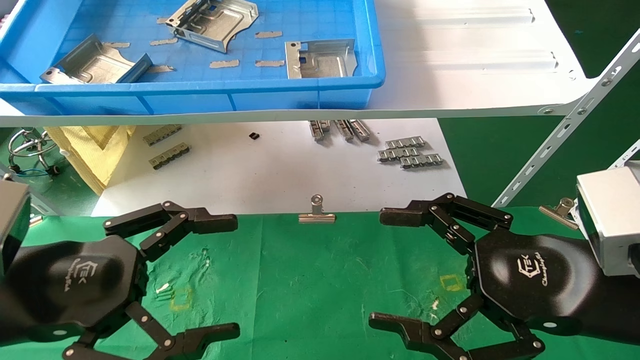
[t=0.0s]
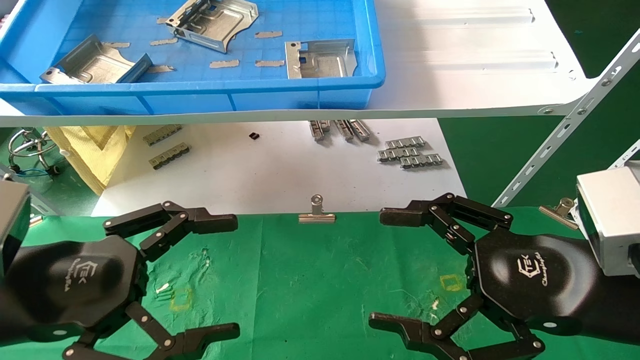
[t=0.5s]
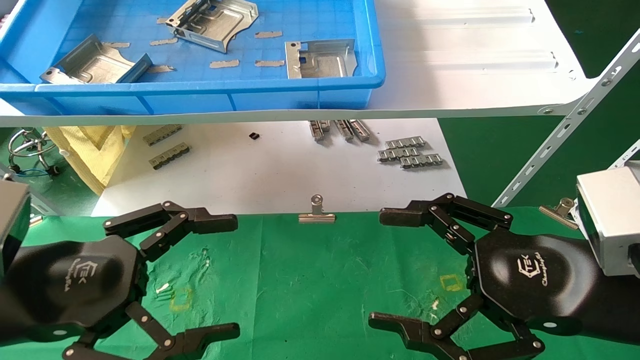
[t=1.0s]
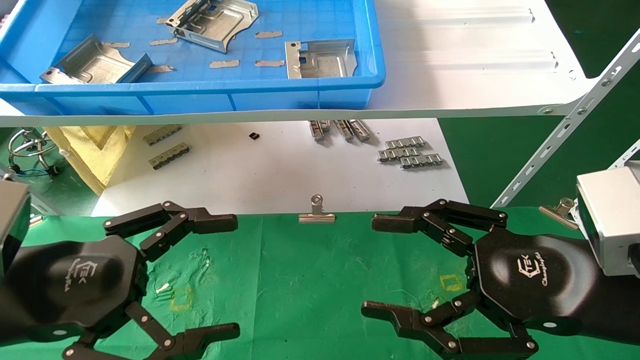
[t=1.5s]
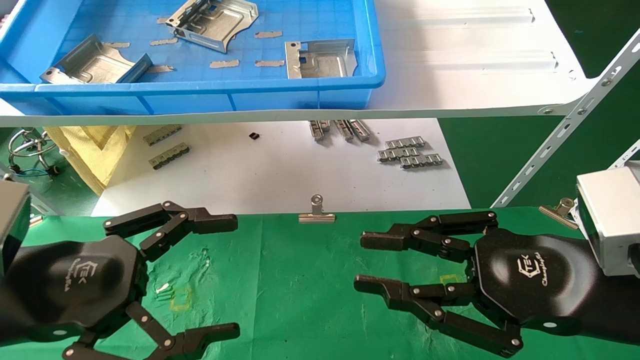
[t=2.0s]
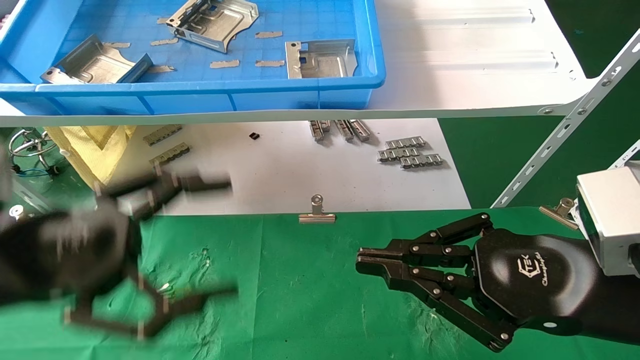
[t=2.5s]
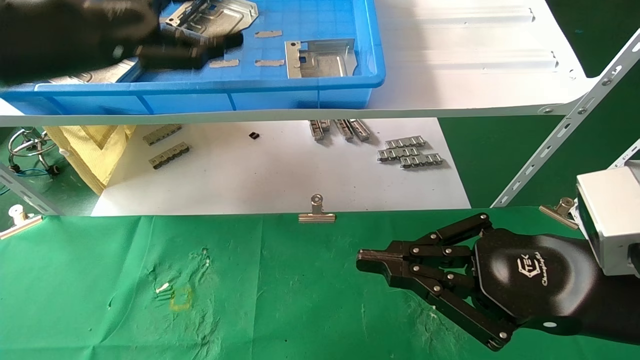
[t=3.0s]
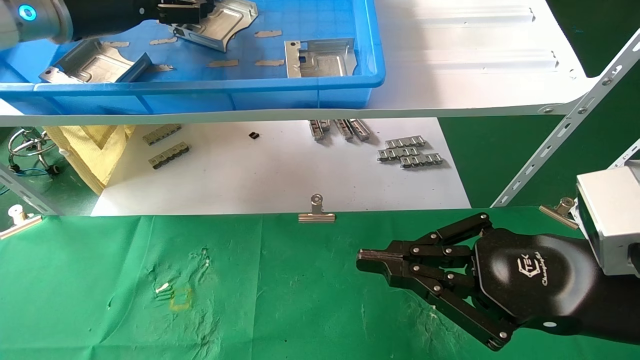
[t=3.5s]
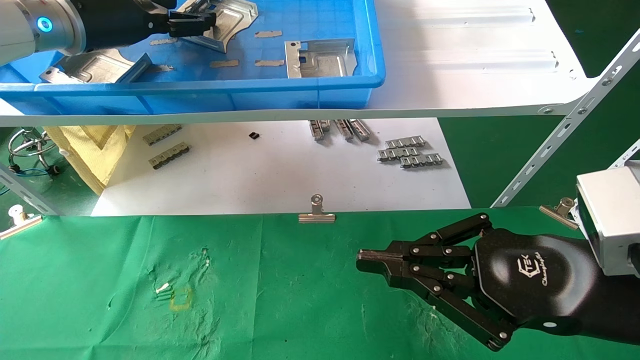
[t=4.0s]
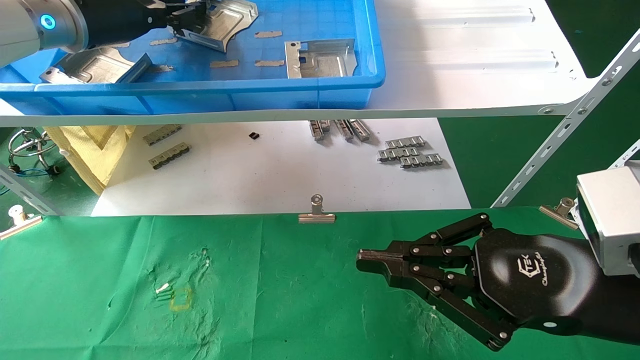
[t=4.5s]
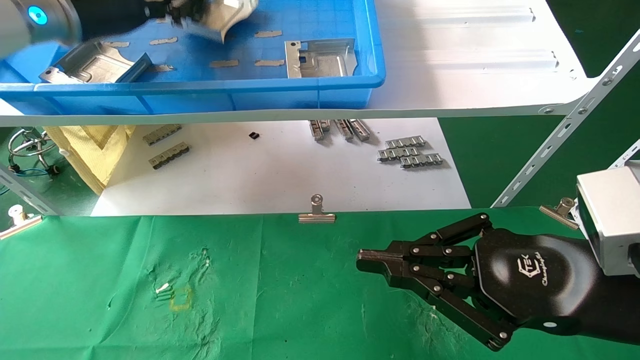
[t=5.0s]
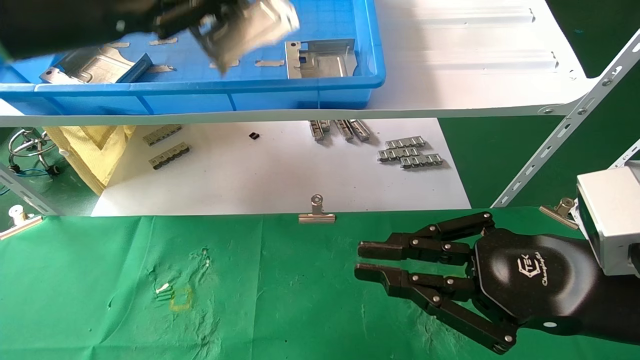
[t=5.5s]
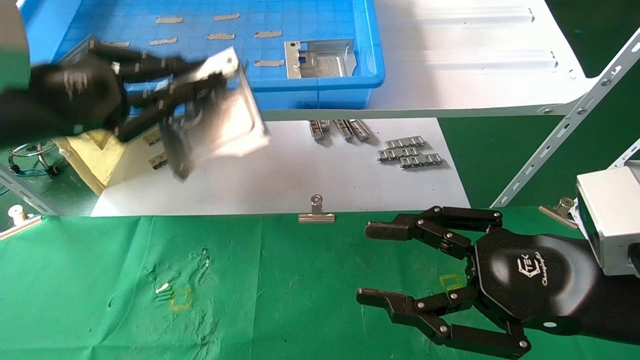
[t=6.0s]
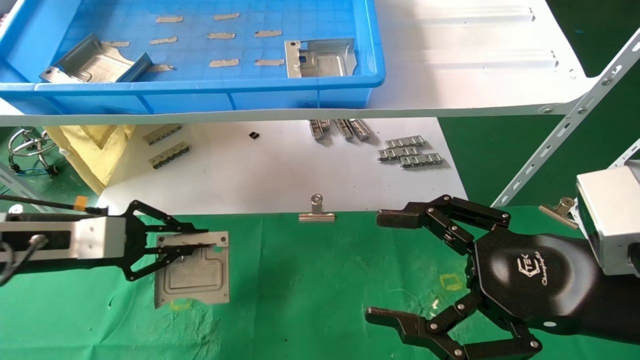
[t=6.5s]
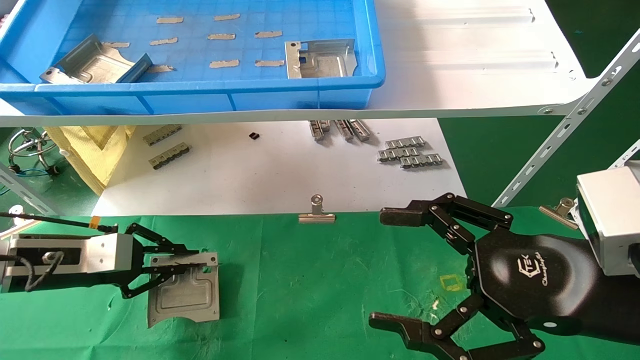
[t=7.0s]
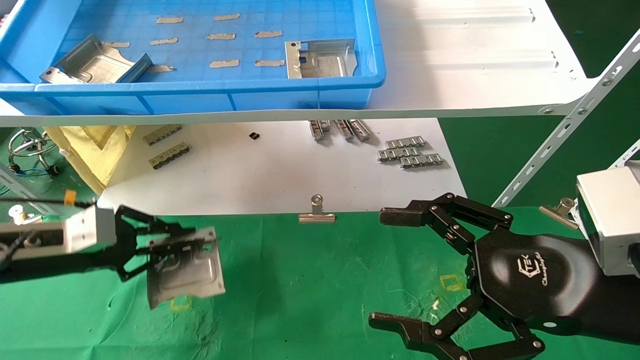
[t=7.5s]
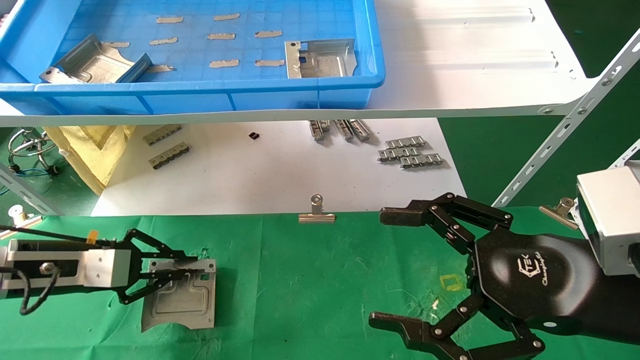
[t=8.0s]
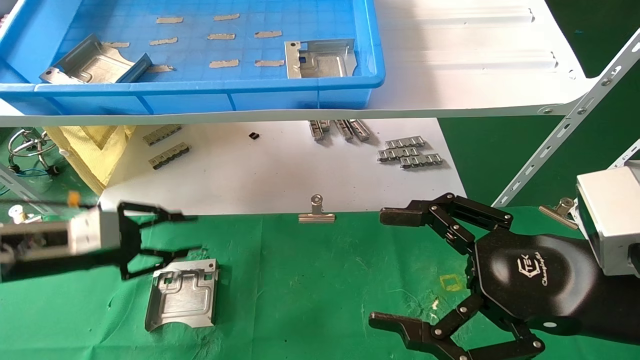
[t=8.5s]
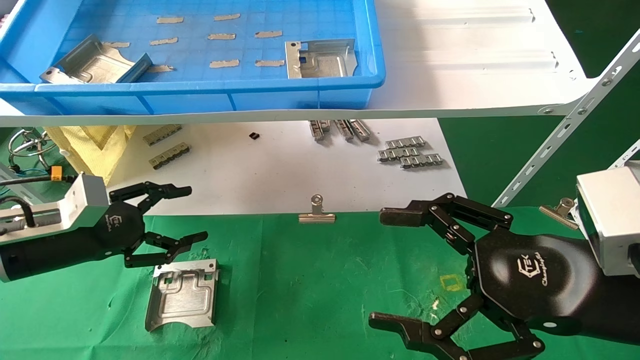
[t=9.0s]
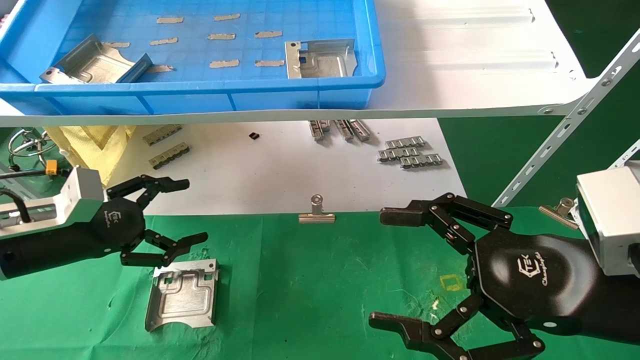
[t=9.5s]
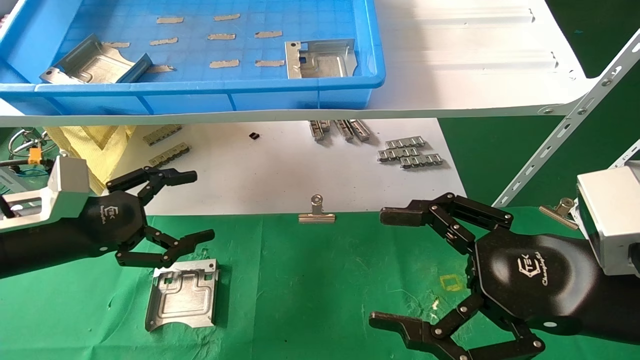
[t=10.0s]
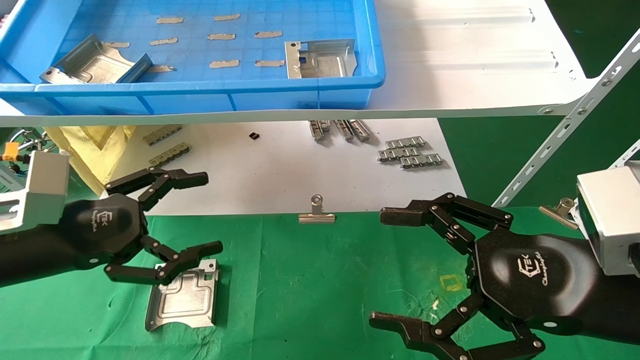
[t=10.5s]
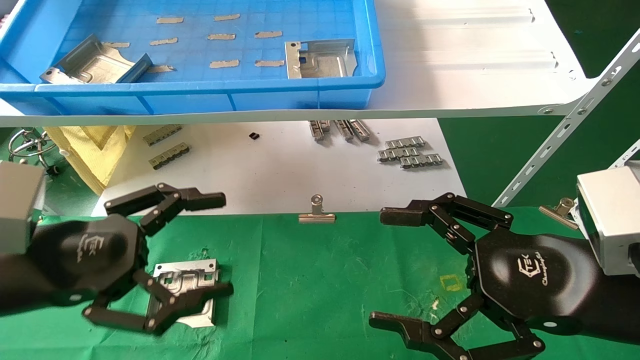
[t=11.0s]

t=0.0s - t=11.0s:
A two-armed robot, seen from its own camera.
Task of the whole recording: use the mechanical arm to pick up the parts and place them on the table.
Step, t=2.5s - t=4.5s: Pick up the hard drive bracket from the feeding area.
Step, t=5.0s - t=8.5s: Place the hard drive bracket into the box.
t=0.0s - t=2.0s: The right gripper closes.
t=2.0s - t=3.5s: The right gripper closes. The left gripper heads forward and upward, covering some 30 cm.
t=3.5s - t=5.5s: The left gripper goes roughly 10 cm backward, and closes.
t=5.5s - t=7.5s: The left gripper is displaced downward by some 25 cm. Meanwhile the right gripper opens its fingers.
t=7.5s - t=9.0s: The left gripper opens its fingers.
t=9.0s - t=11.0s: The left gripper moves backward and to the right, roughly 15 cm, and opens up.
